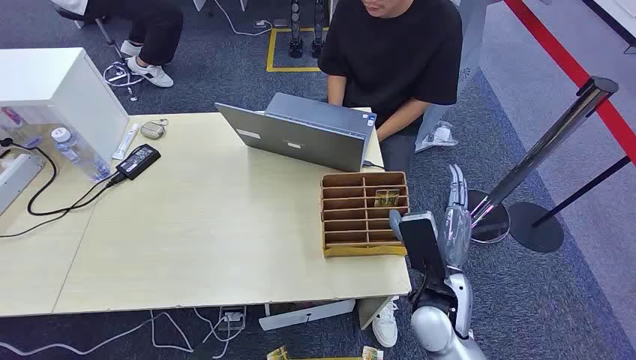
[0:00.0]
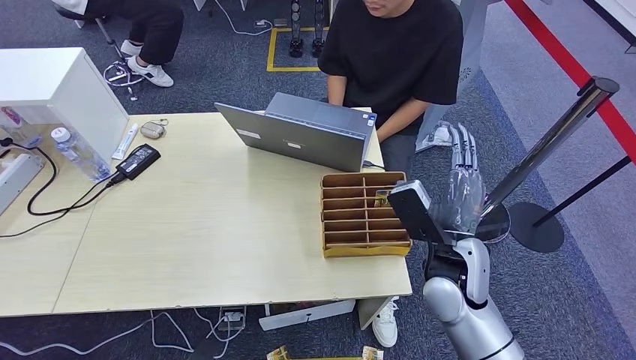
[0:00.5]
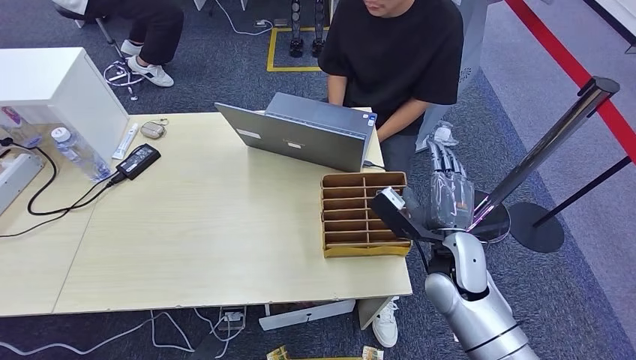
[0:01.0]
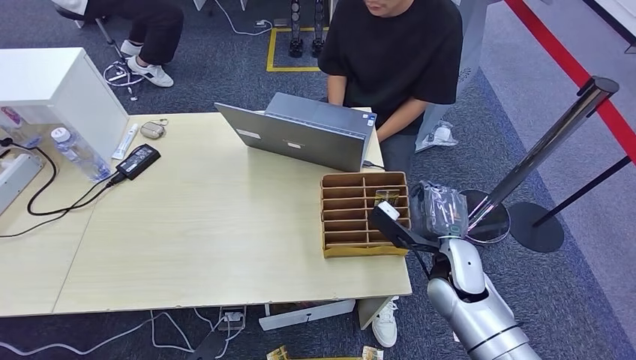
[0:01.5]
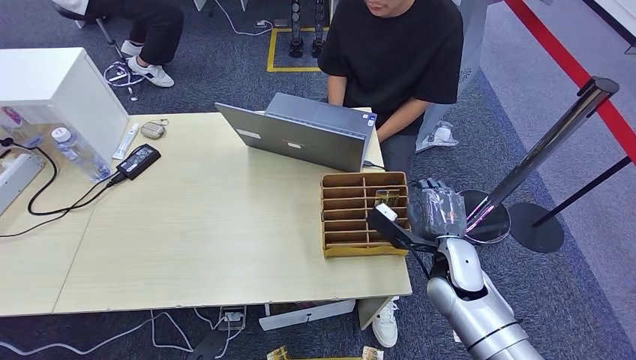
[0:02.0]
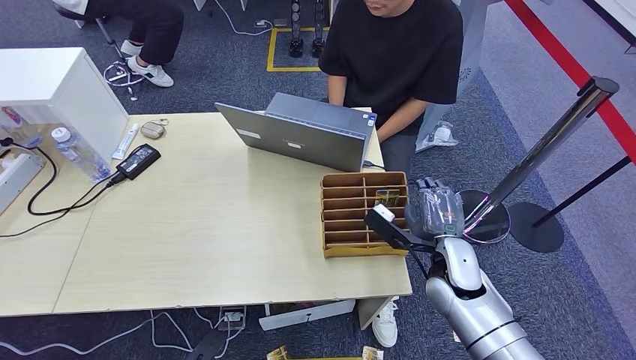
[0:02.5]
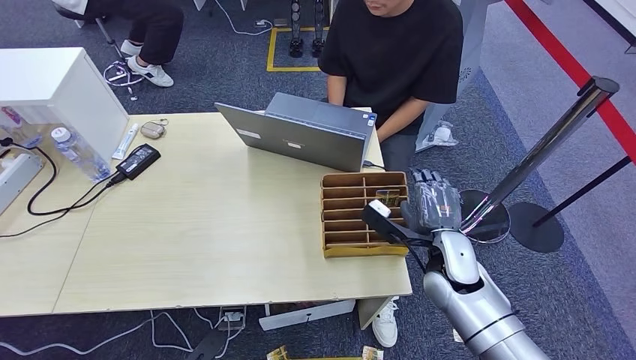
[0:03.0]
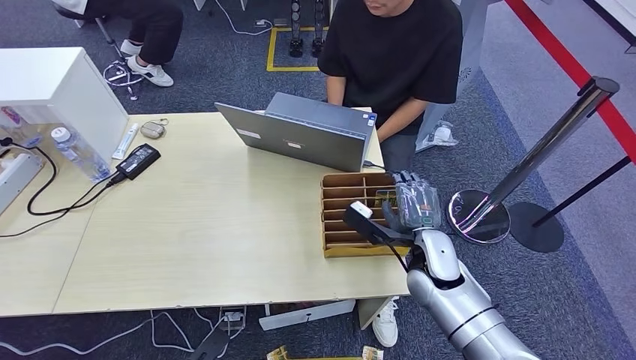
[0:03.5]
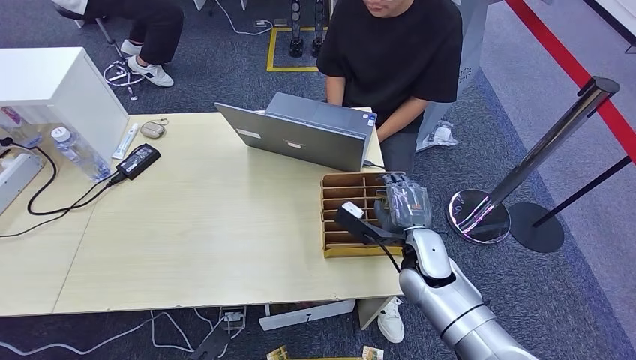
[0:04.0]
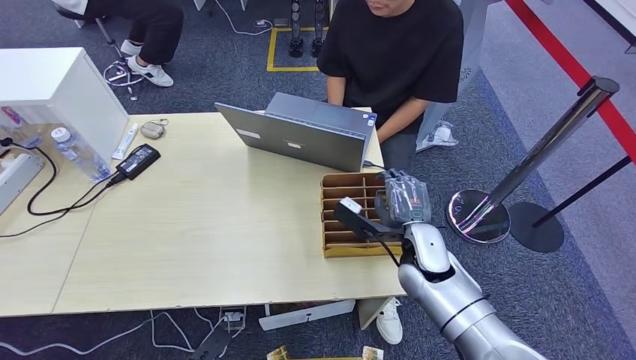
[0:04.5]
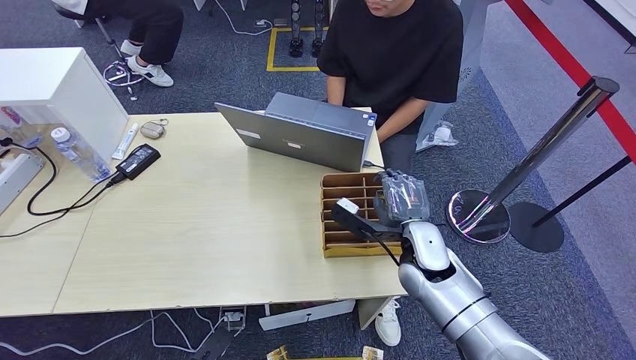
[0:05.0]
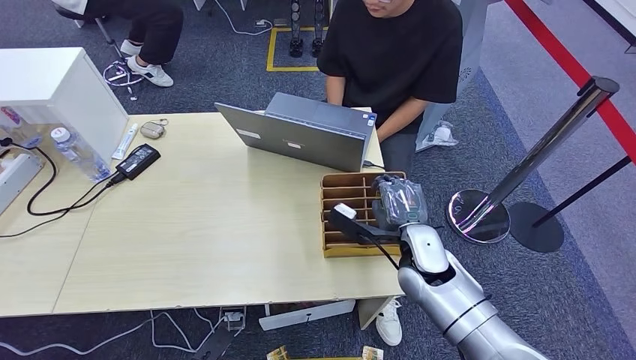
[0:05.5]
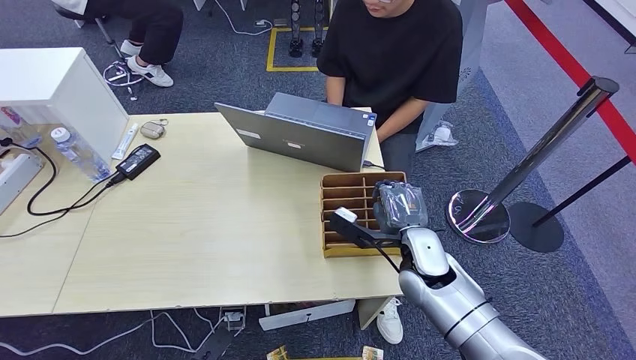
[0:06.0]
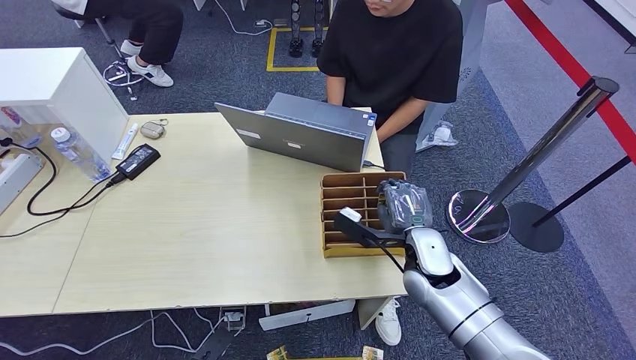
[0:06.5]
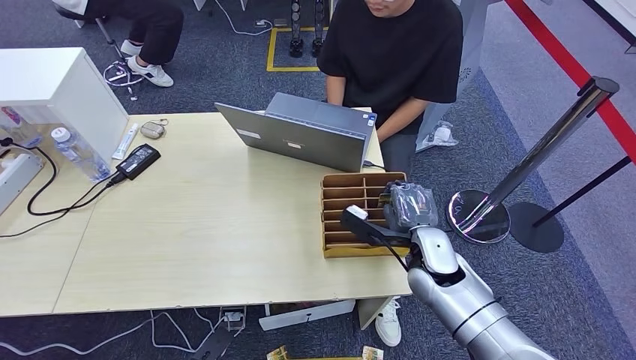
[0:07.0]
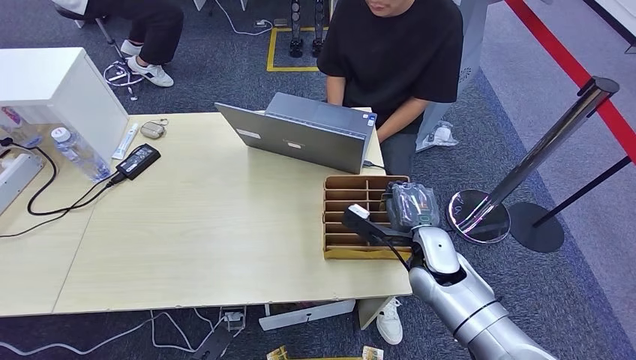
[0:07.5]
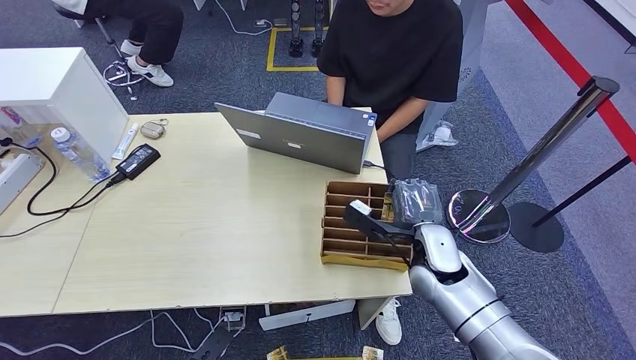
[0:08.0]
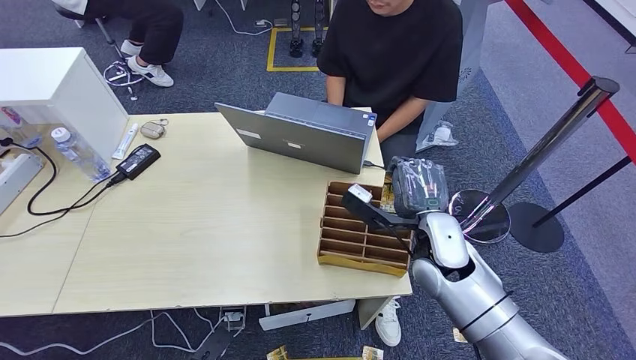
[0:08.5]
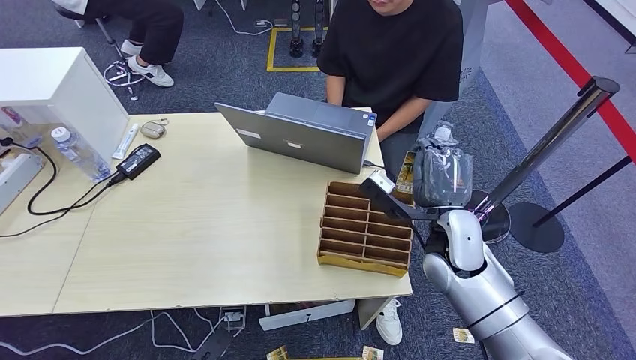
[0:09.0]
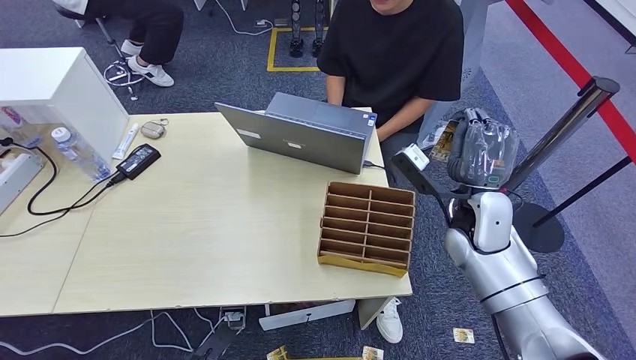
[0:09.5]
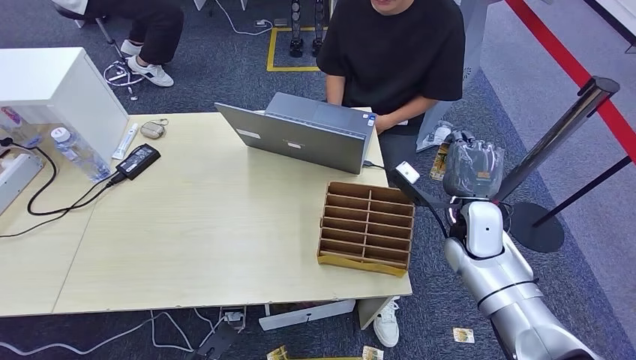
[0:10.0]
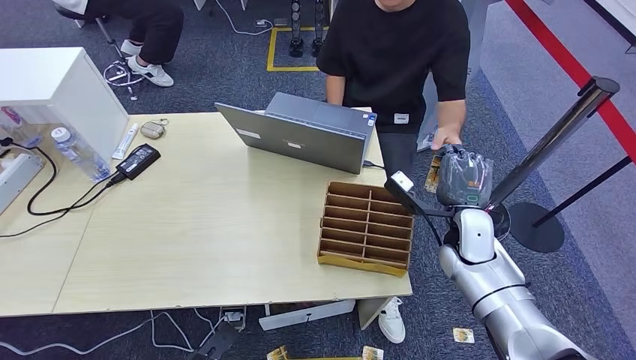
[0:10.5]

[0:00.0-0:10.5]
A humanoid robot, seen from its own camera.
Step, 0:00.0 to 0:09.0: Pick up the room card from the card holder.
Step, 0:09.5 to 0:10.5: Hand the room card to the target.
0:02.0 to 0:04.0: The right hand goes about 5 cm to the left.
0:04.0 to 0:08.5: The hands stay close to where they were, moving slightly.
0:08.5 to 0:10.5: The right hand is displaced to the right by roughly 5 cm.

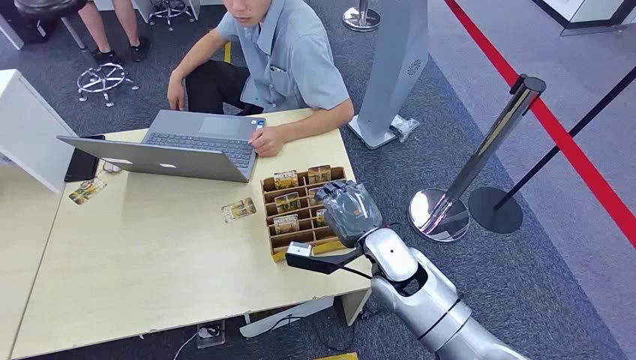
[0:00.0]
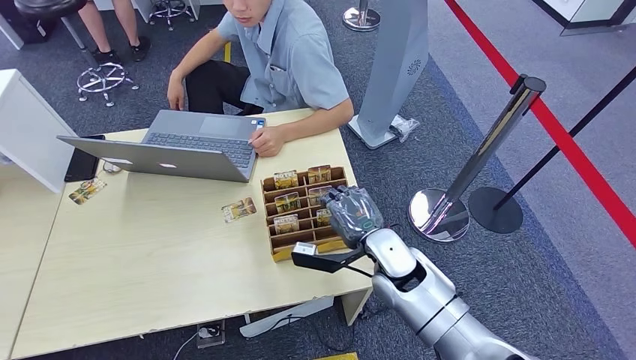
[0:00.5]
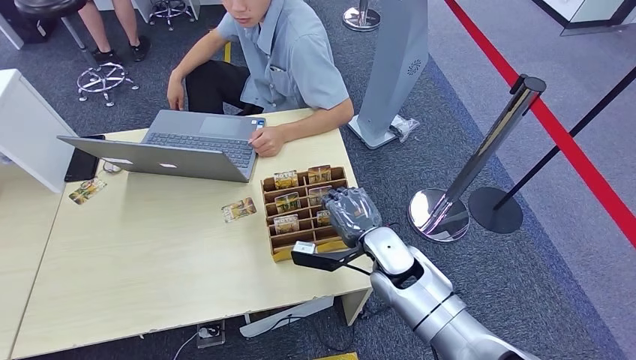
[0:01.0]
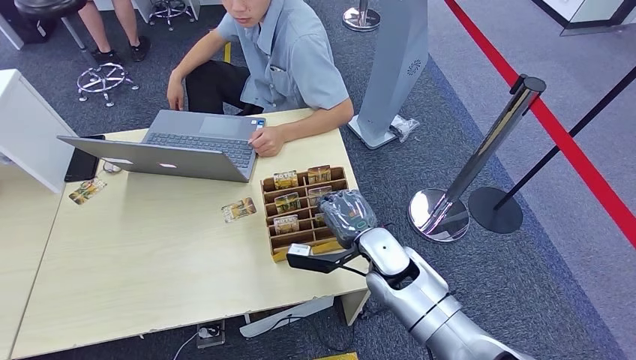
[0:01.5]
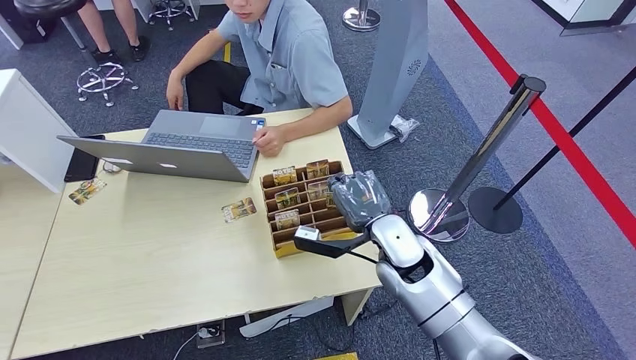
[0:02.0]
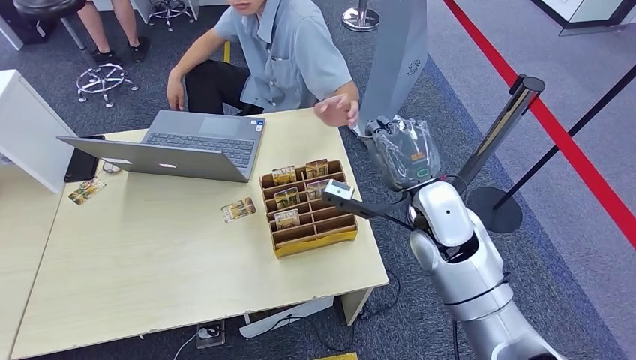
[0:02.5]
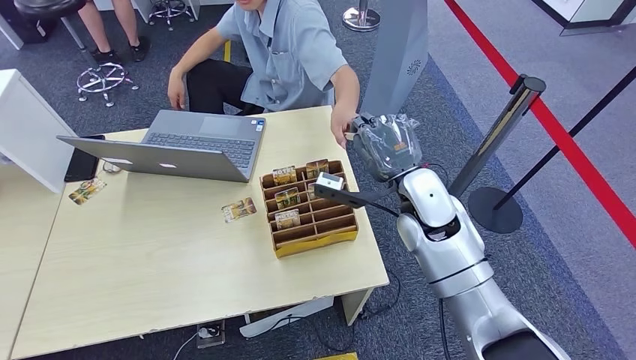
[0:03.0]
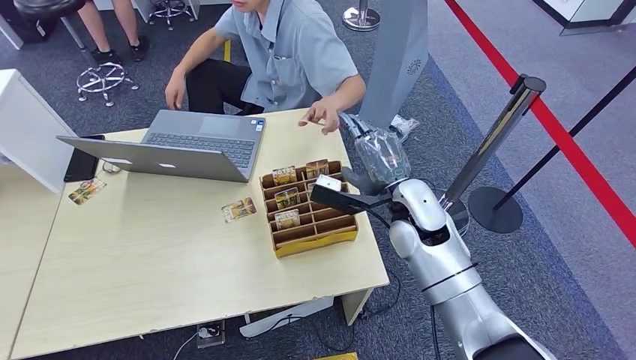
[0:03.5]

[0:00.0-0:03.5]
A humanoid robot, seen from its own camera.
Step, 0:00.0 to 0:02.0: Pick up the room card from the card holder.
0:02.0 to 0:03.5: The right hand changes place by roughly 5 cm.

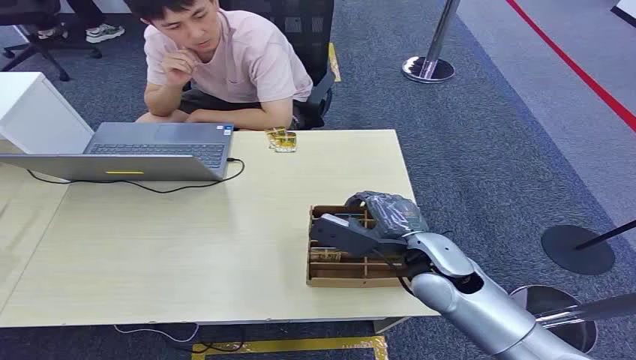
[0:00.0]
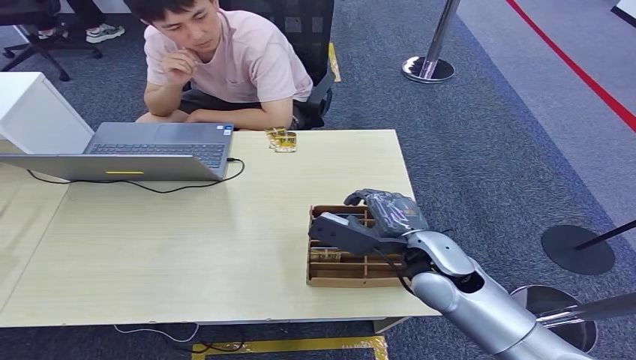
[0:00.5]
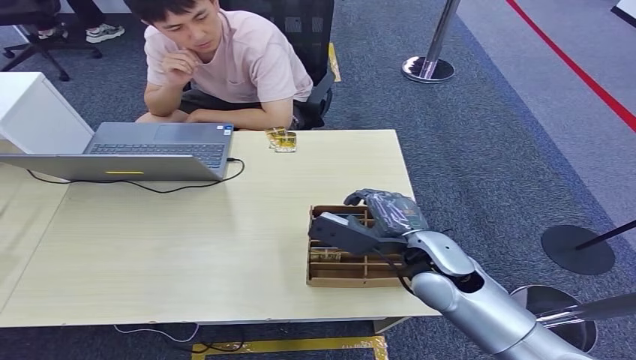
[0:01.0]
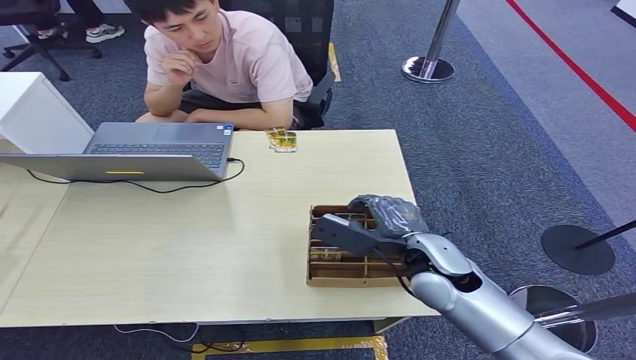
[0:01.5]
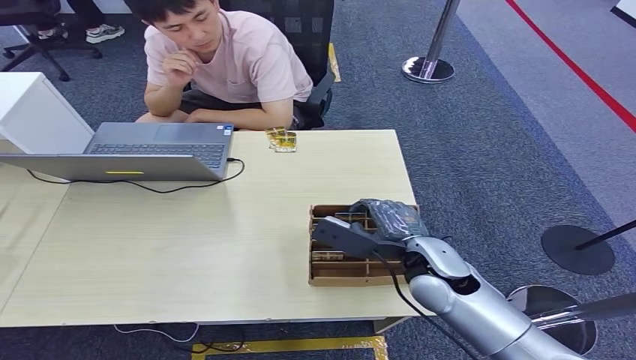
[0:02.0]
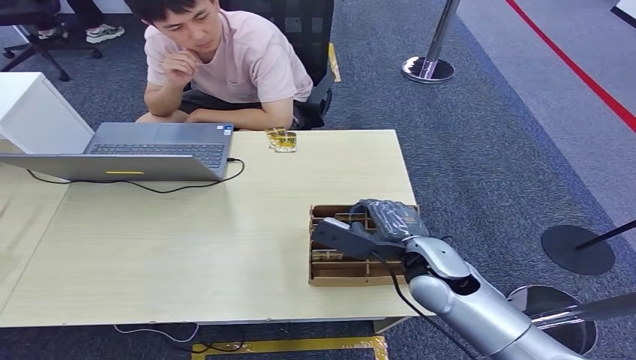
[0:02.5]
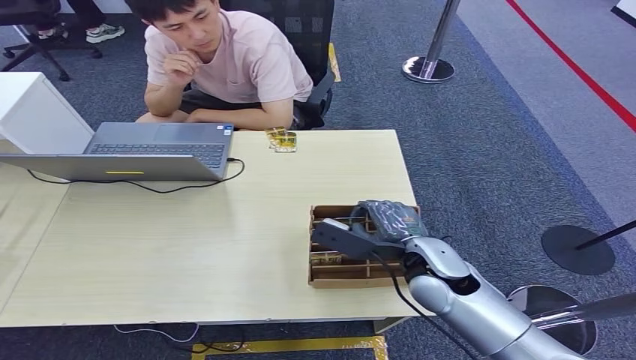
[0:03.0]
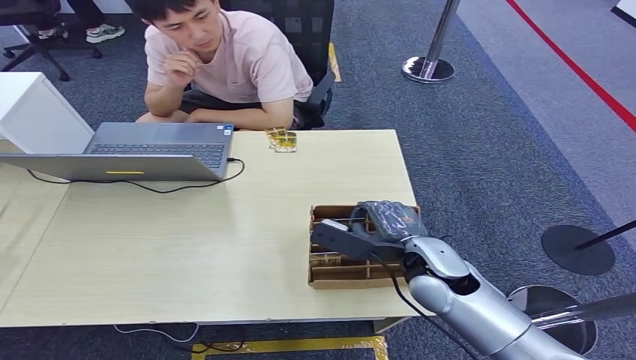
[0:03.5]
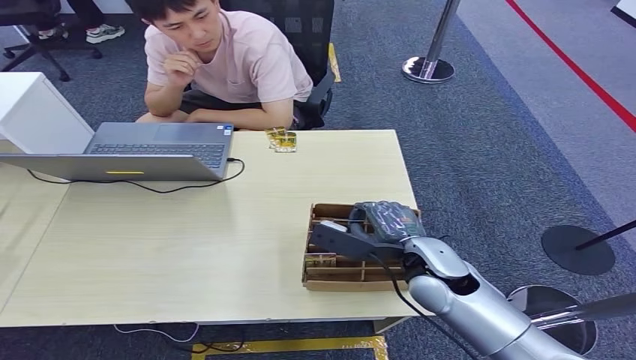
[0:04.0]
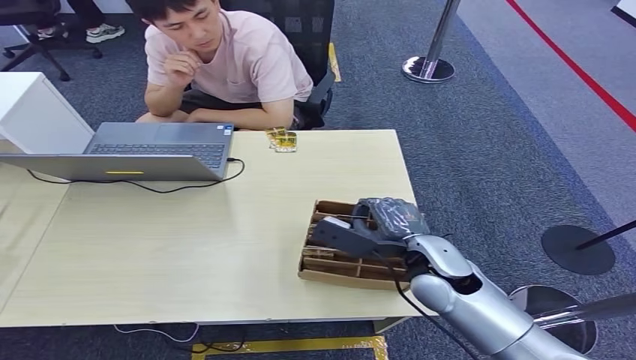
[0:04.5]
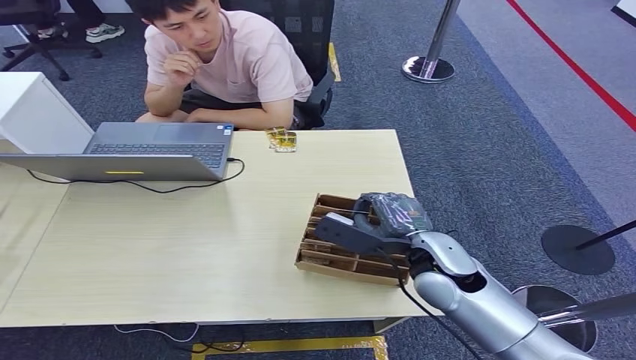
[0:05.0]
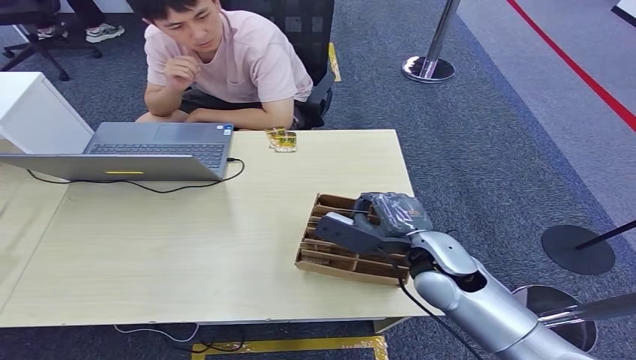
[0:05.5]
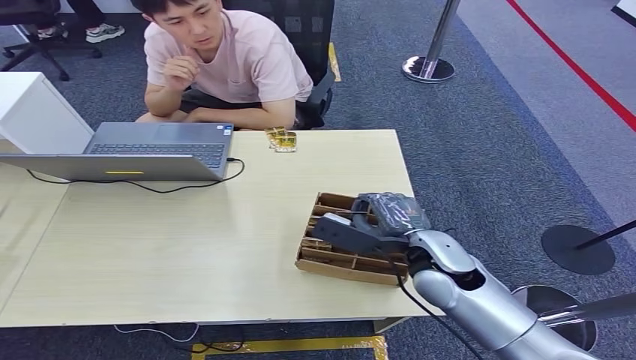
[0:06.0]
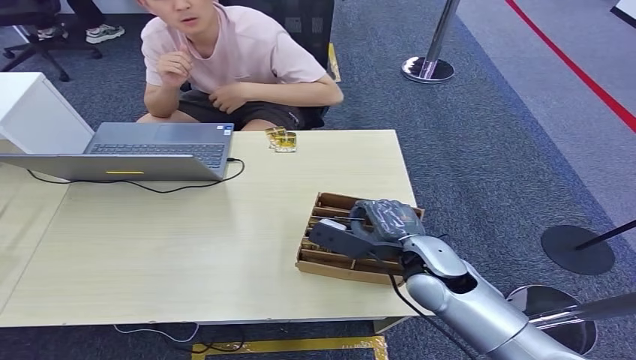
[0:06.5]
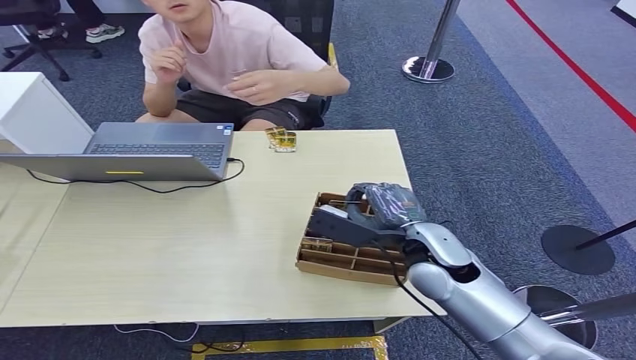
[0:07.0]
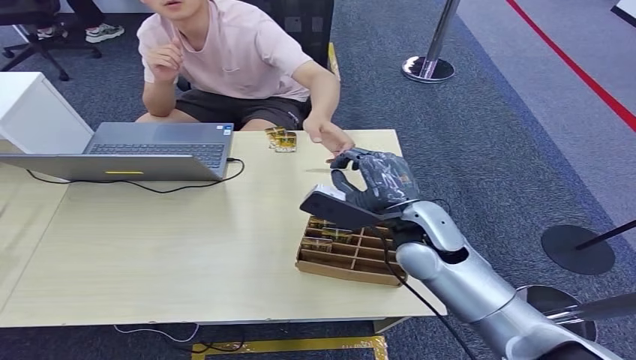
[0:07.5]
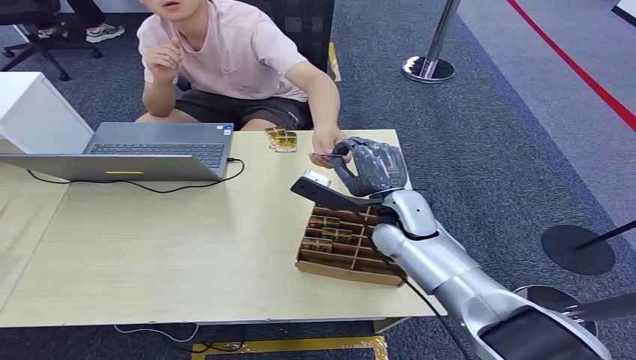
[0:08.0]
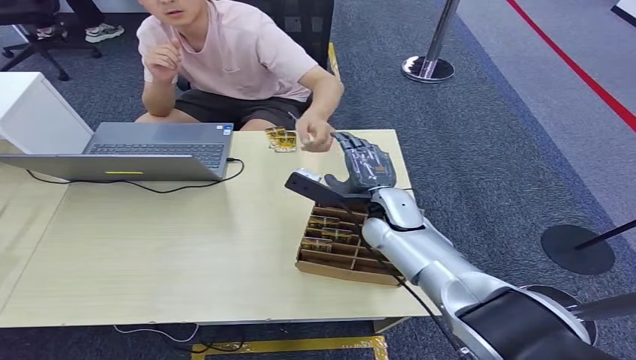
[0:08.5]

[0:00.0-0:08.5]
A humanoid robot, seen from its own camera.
Step, 0:00.0 to 0:07.0: Pick up the room card from the card holder.
Step, 0:07.5 to 0:08.5: Hand the room card to the target.
0:02.0 to 0:04.0: Neither hand changes place.
0:04.0 to 0:06.5: There are only small adjustments of the hands.
0:06.5 to 0:08.5: The right hand is displaced forward by about 10 cm.
